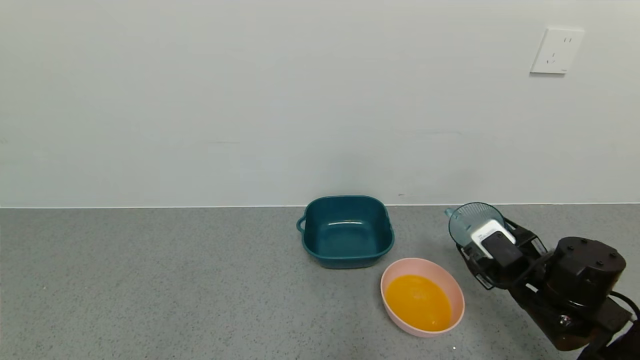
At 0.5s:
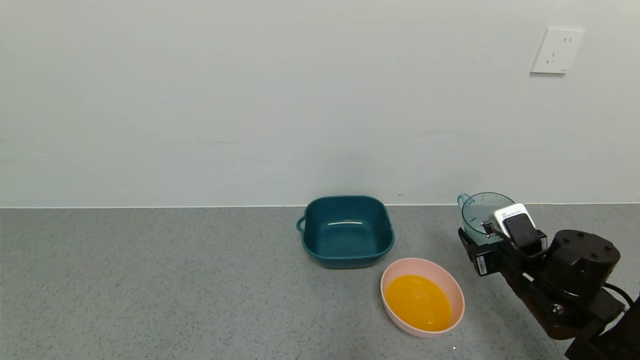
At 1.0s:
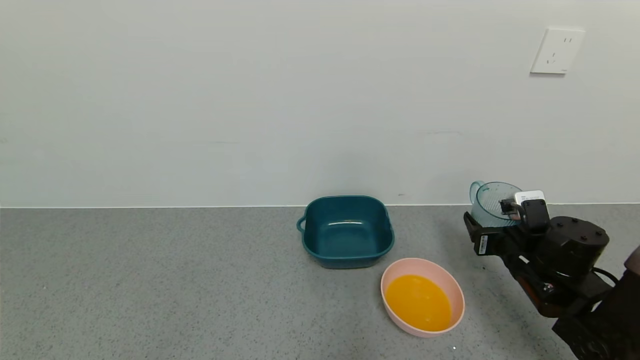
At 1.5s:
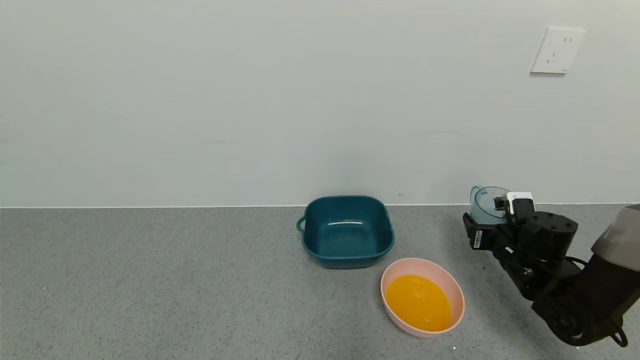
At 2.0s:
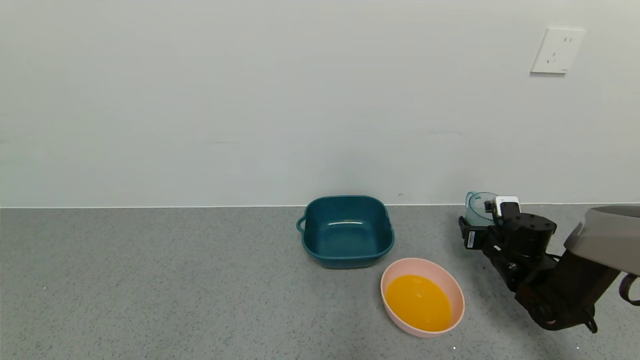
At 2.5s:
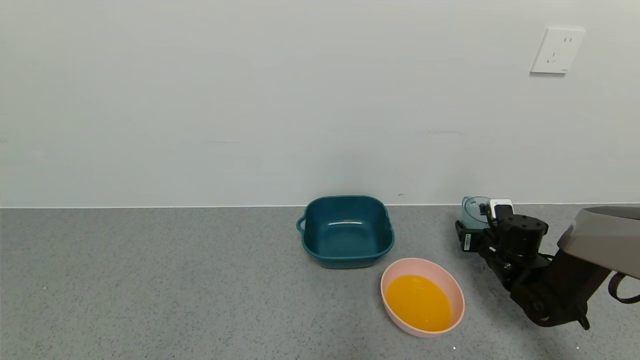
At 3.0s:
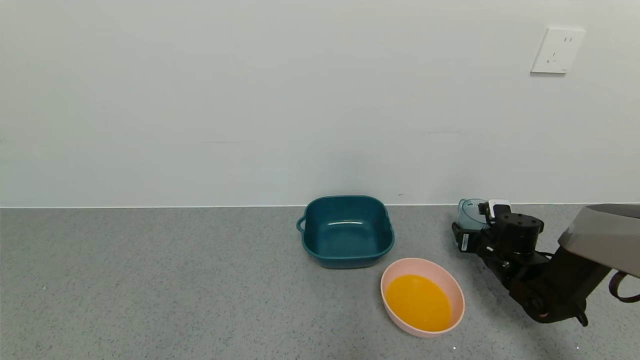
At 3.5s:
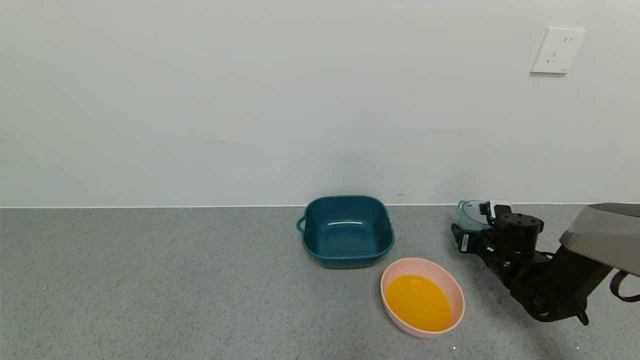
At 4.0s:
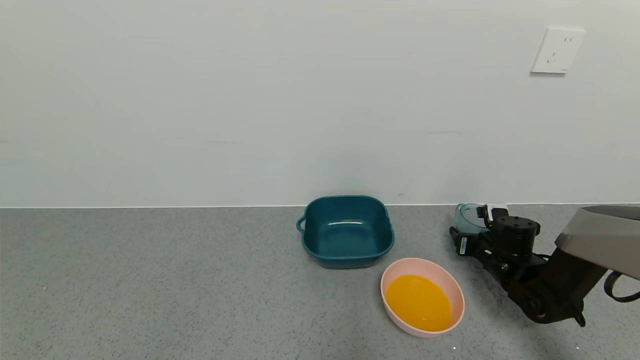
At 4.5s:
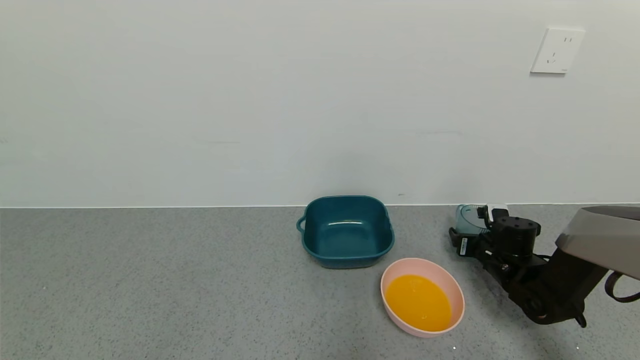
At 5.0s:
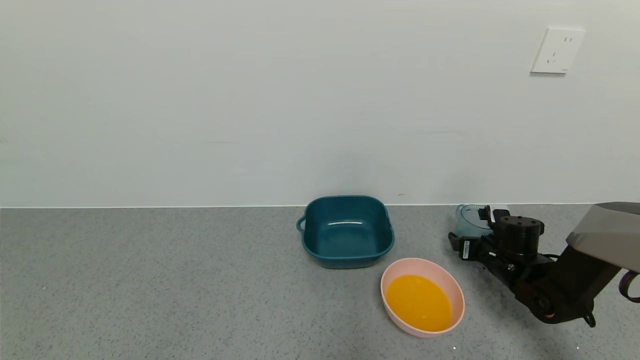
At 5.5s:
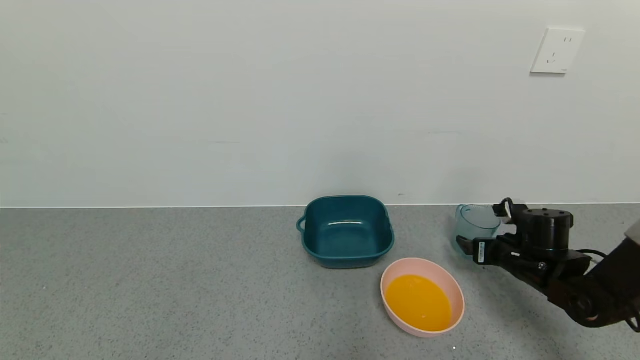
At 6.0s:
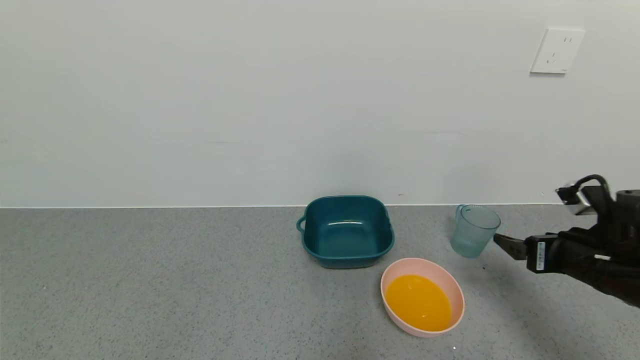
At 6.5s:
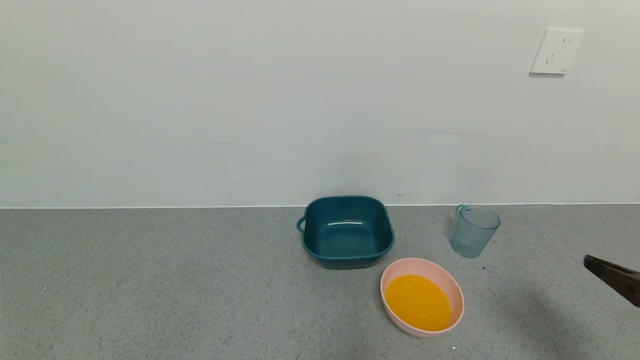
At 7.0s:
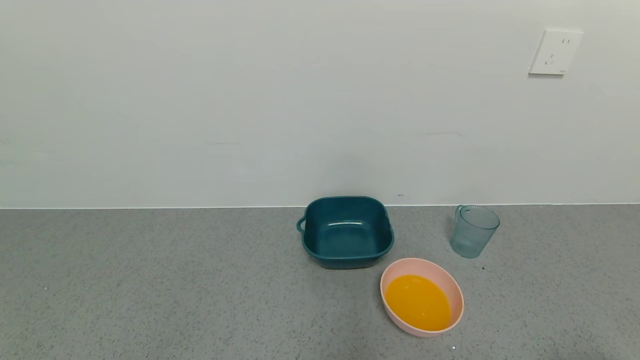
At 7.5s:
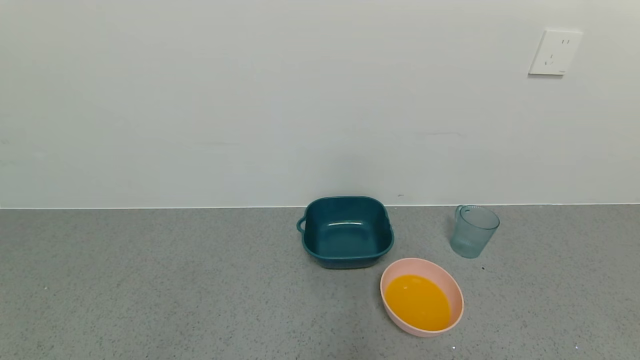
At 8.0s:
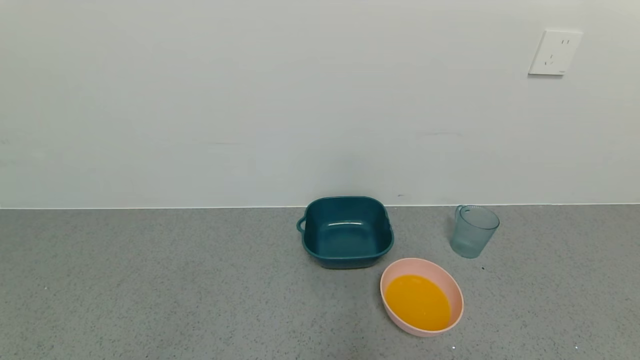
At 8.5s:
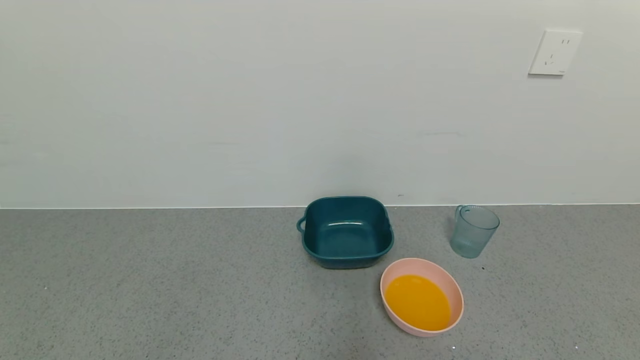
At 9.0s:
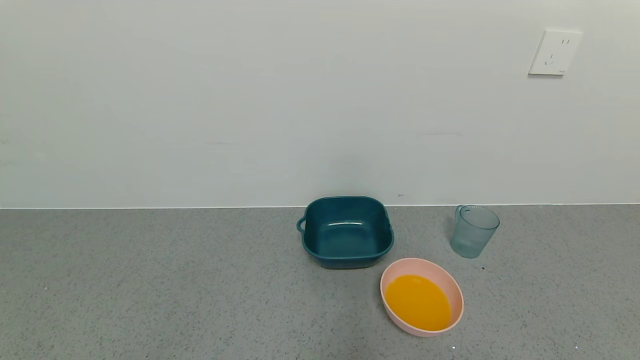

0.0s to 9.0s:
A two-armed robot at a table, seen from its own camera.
Task of the whole recording: use a gripper to pick up the cup and pour the liquid into a bowl or tray.
Step, 0.0s to 4.5s: Place blue cup with orange juice on the table with right gripper.
0.0s to 2.0s: The right gripper heads forward and downward, covering roughly 15 cm.
2.0s to 4.5s: The right gripper opens up.
4.5s to 7.0s: The right gripper heads backward and upward, covering about 40 cm, and opens.
